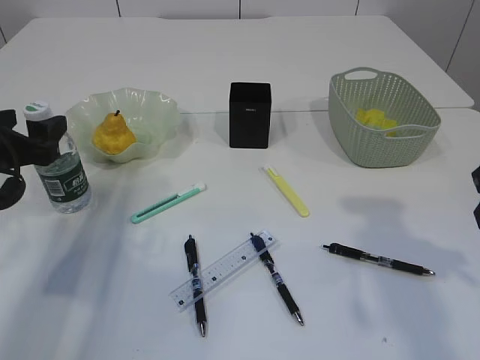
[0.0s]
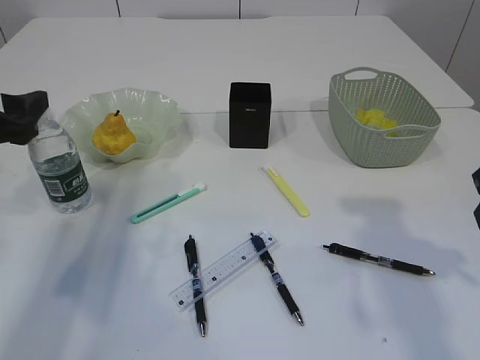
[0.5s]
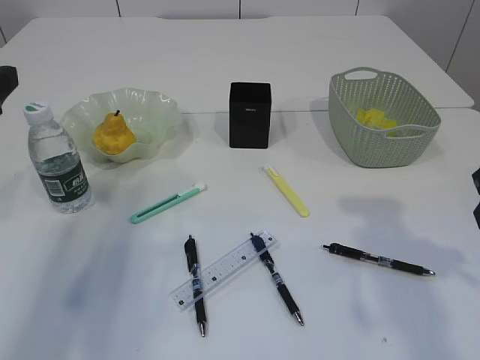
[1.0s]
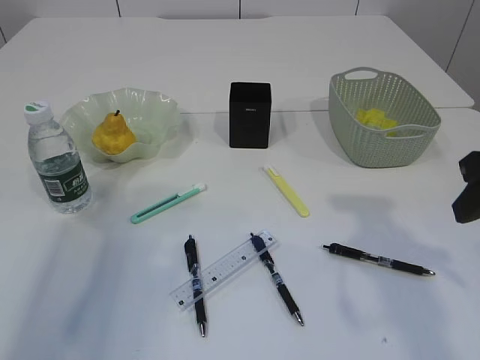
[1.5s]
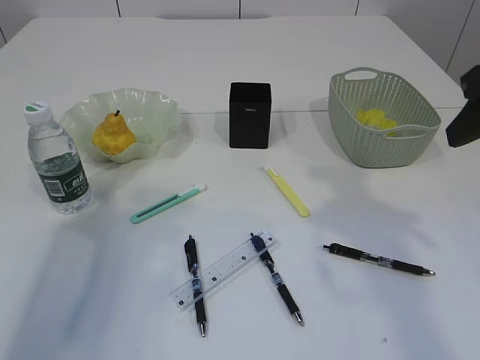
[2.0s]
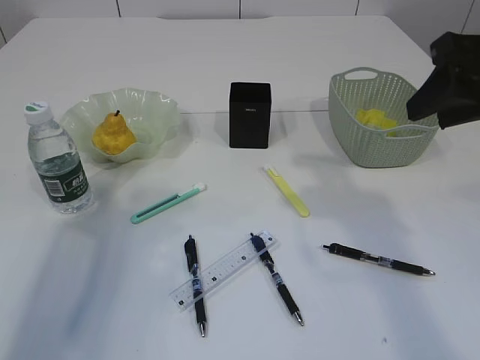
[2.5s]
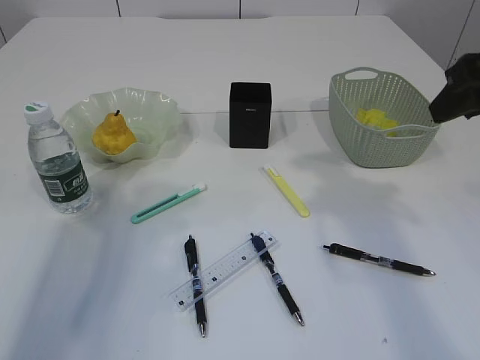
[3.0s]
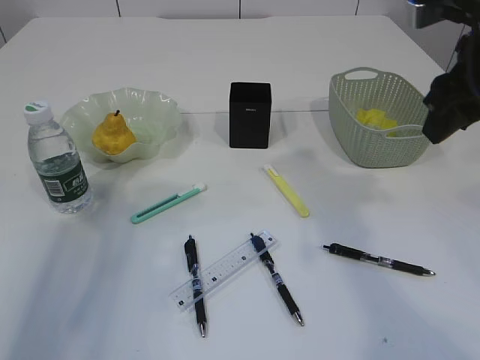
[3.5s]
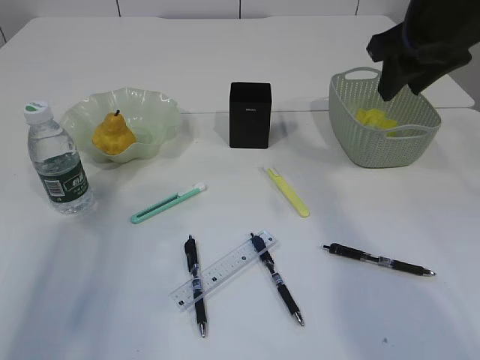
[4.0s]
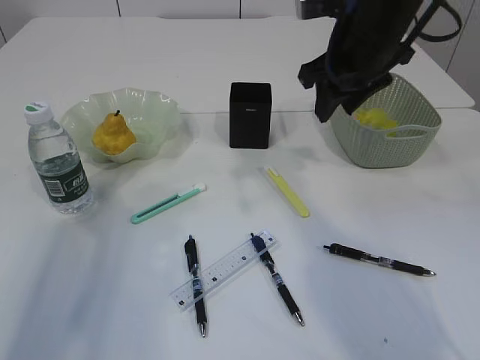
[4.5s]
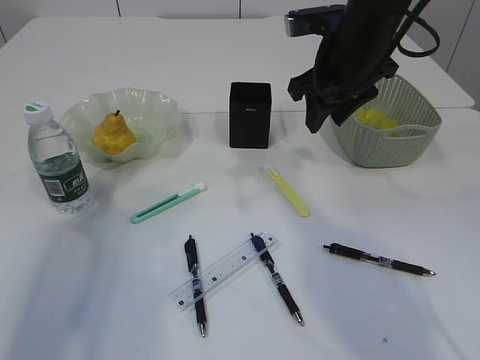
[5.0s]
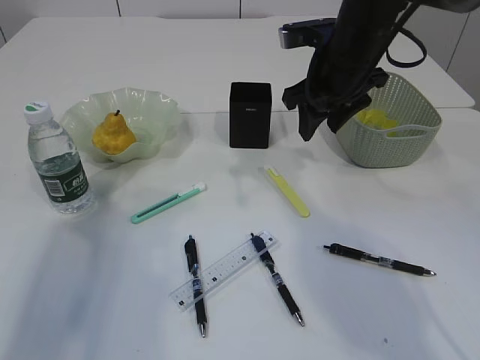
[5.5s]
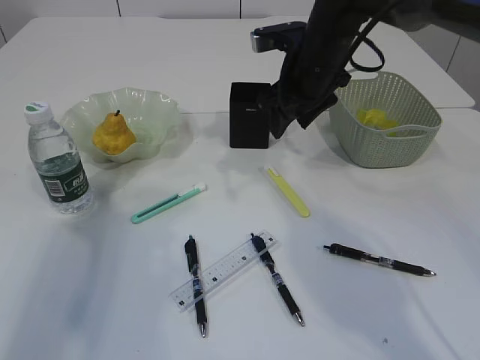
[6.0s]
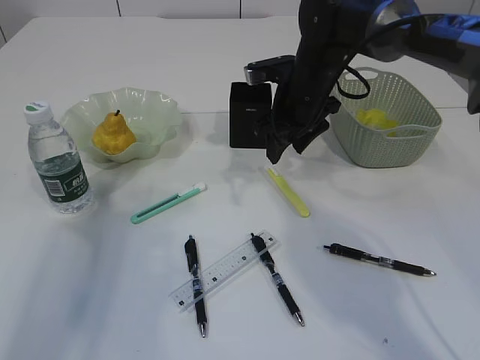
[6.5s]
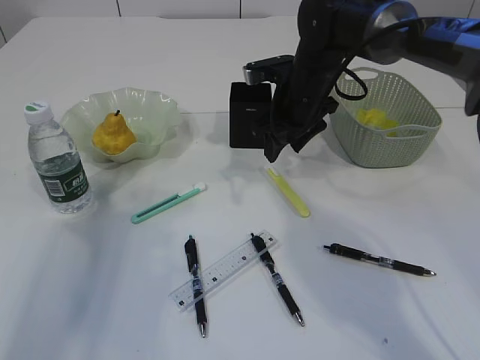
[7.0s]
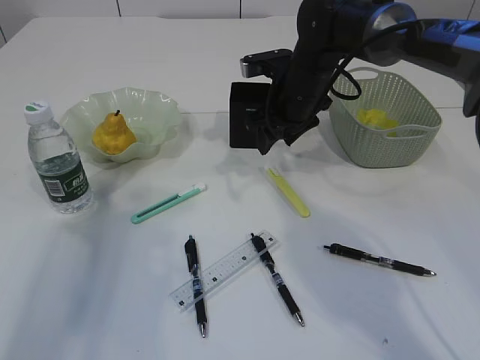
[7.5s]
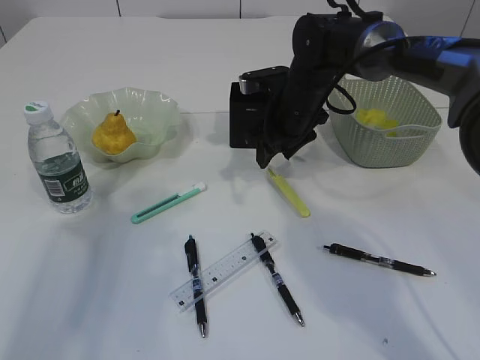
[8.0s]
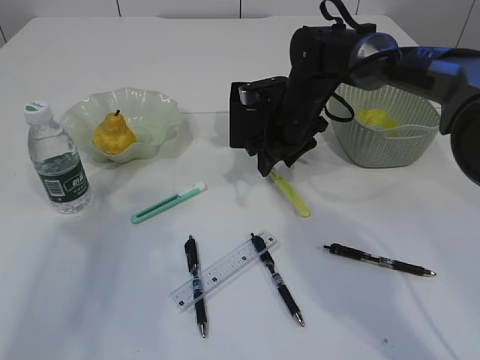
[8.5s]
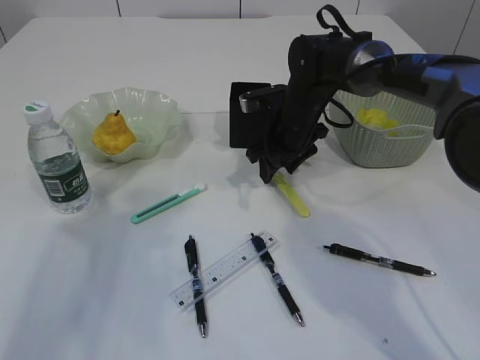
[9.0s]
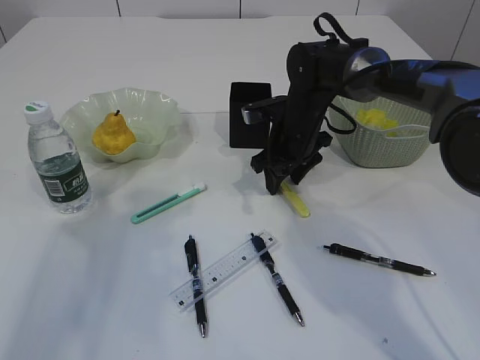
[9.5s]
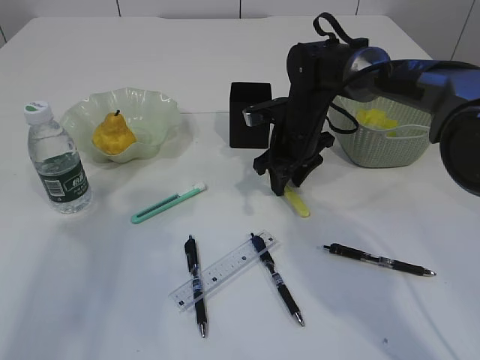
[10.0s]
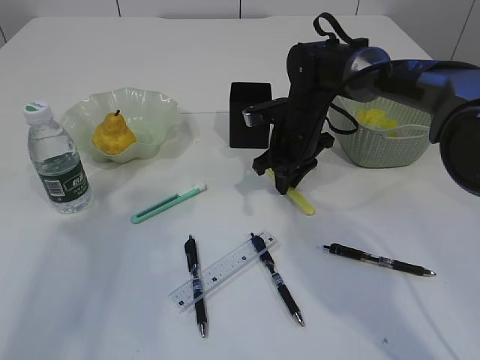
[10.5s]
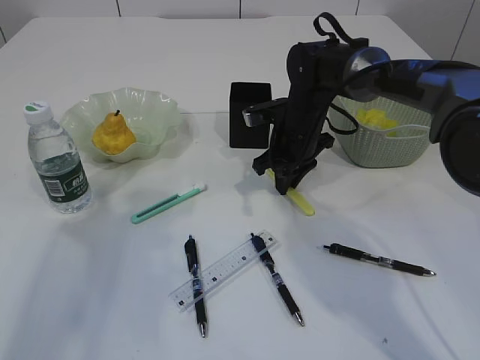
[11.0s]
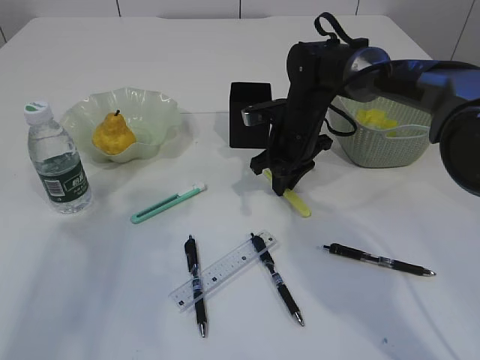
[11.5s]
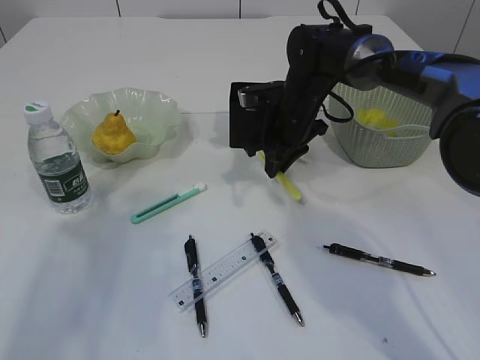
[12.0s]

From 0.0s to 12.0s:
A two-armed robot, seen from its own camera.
From 0.0s to 2.0s: The left gripper moves upward and backward, approximately 15 cm. The right gripper travels upward by approximately 5 cm.
From 2.0s to 4.0s: The right gripper goes some 10 cm forward.
From 4.0s to 6.0s: The right gripper heads to the left, downward and forward, covering about 15 cm.
From 6.0s to 8.0s: The right gripper goes approximately 5 cm downward.
From 8.0s to 10.0s: There are only small adjustments of the grippers.
From 10.0s to 12.0s: The right gripper closes up.

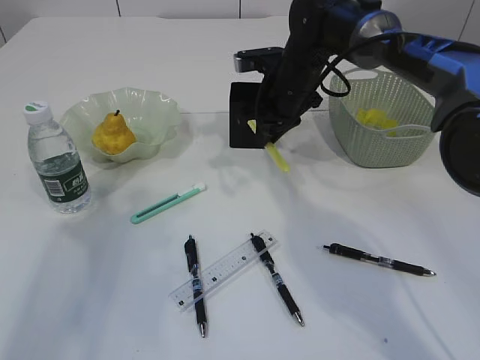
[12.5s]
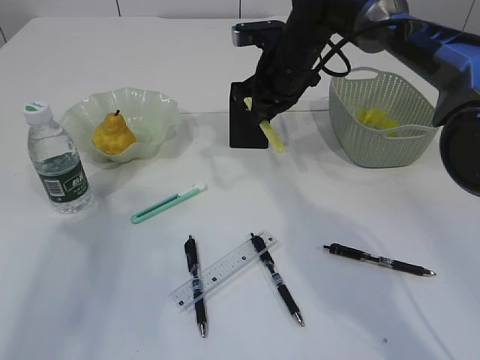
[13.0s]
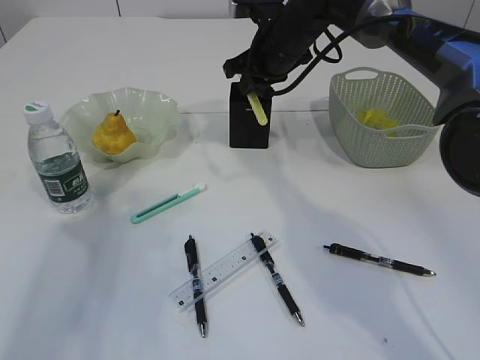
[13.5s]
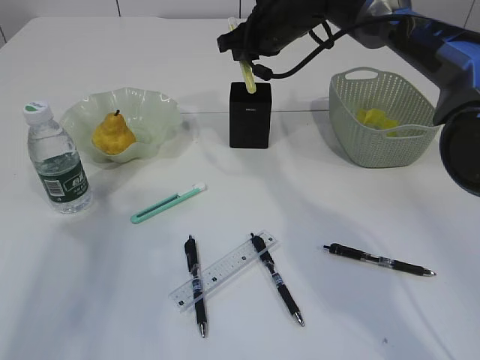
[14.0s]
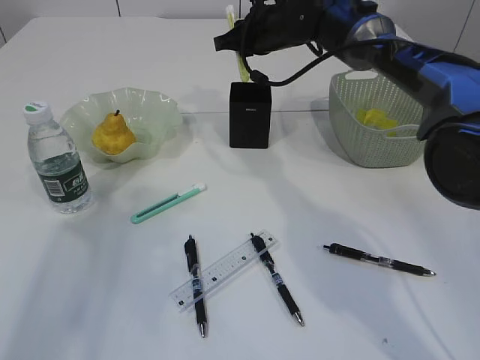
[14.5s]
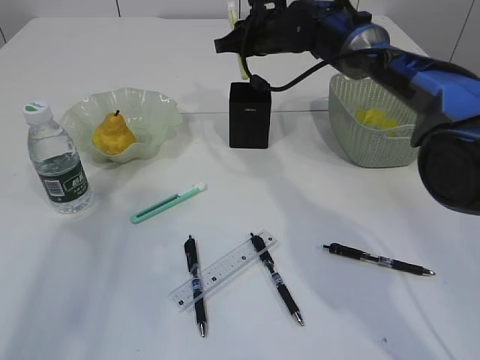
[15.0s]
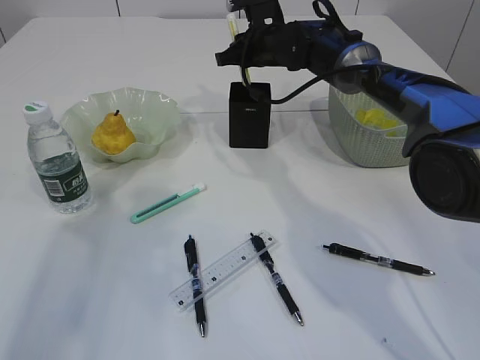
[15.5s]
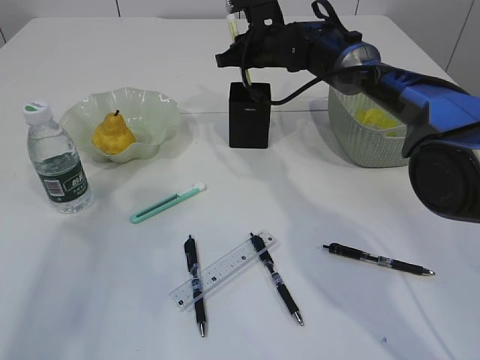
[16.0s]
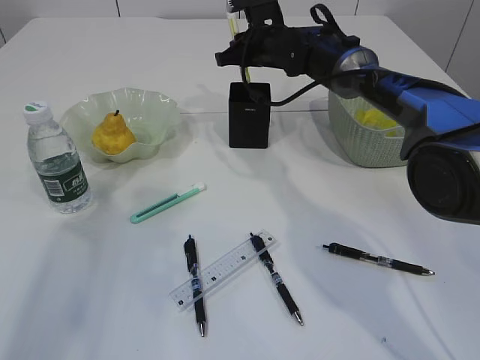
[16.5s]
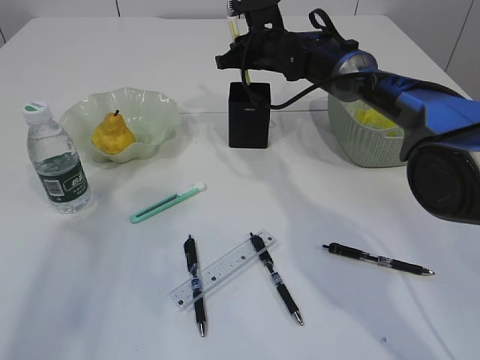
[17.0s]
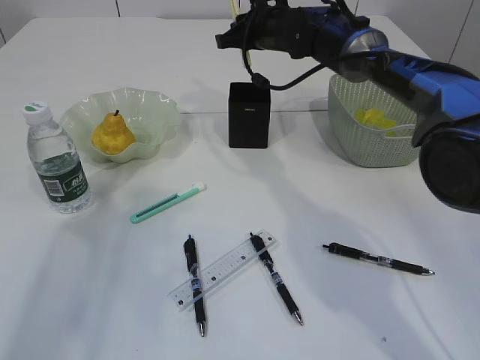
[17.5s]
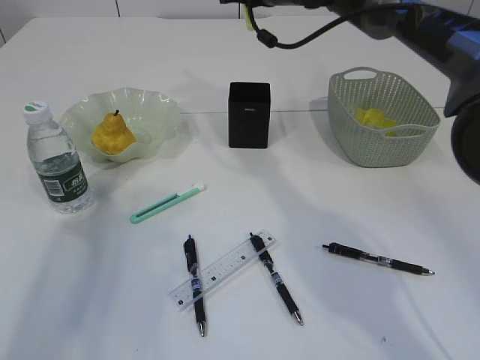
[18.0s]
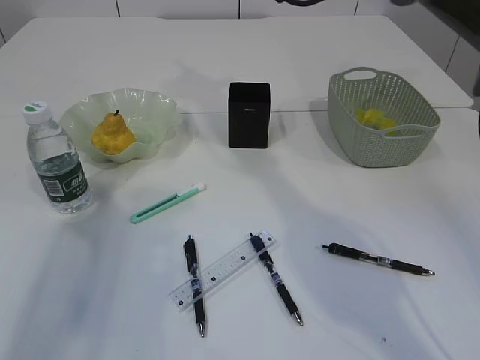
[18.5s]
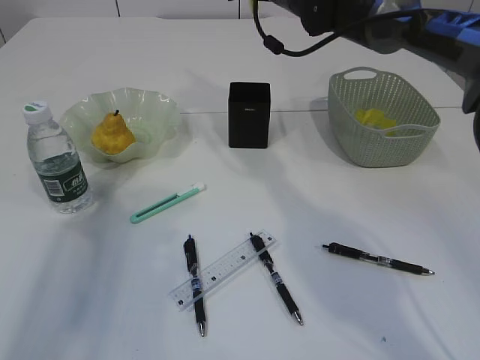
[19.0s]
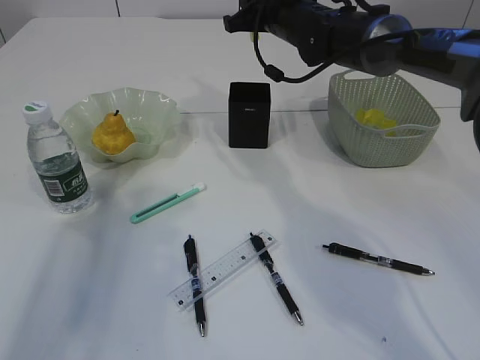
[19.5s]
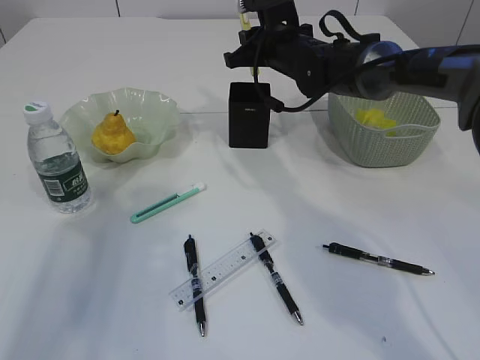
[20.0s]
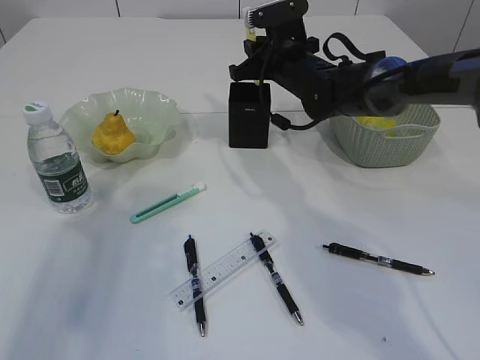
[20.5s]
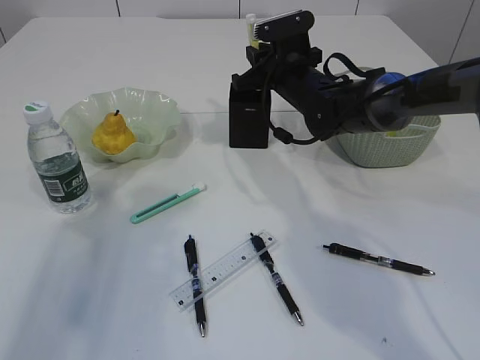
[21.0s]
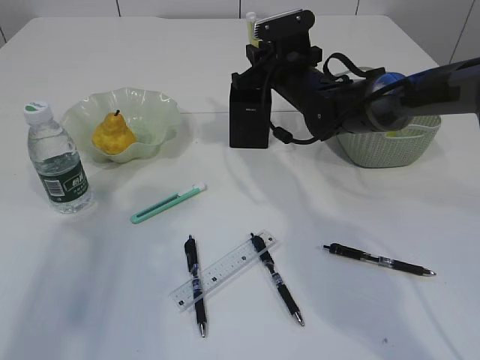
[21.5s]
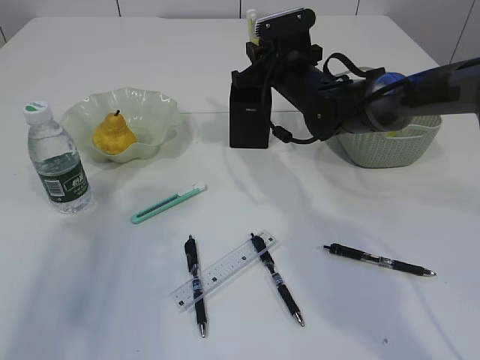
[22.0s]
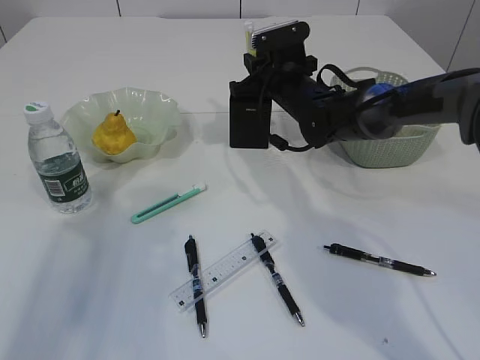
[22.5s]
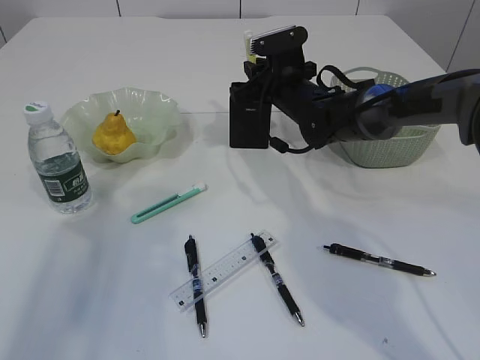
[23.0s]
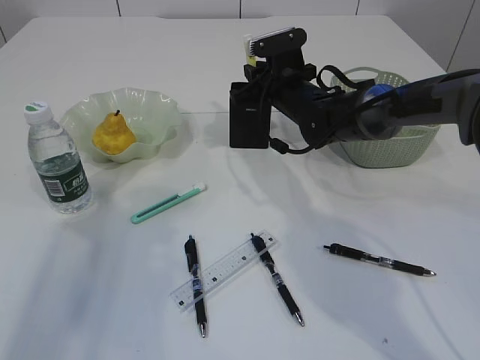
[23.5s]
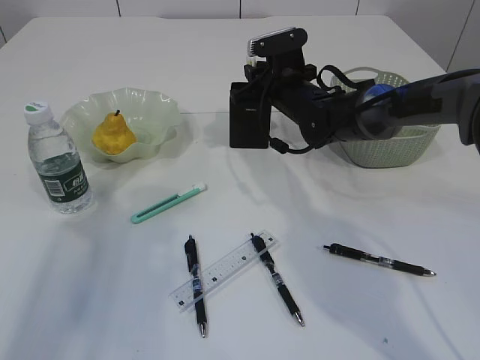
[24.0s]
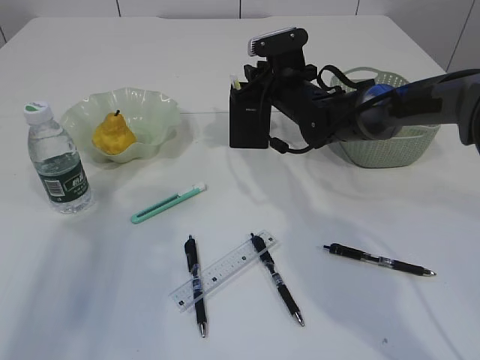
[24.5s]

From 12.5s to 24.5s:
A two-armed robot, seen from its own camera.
From 12.5s to 14.5s: The right gripper shifts some 10 cm forward and upward.
From 14.5s to 16.5s: There are only small adjustments of the grippers.
From 16.5s to 18.5s: The right gripper moves upward, about 15 cm.
From 18.5s to 20.5s: The right gripper travels downward by approximately 15 cm.
From 20.5s to 22.5s: The grippers make only small movements.
From 22.5s to 24.5s: Both grippers stay about where they are.

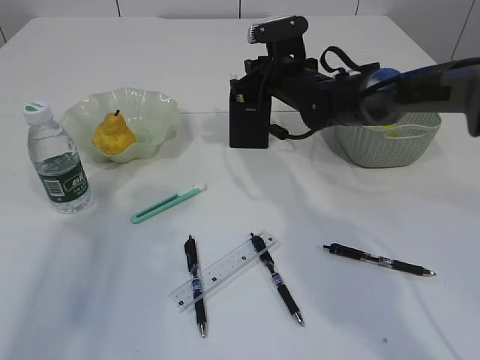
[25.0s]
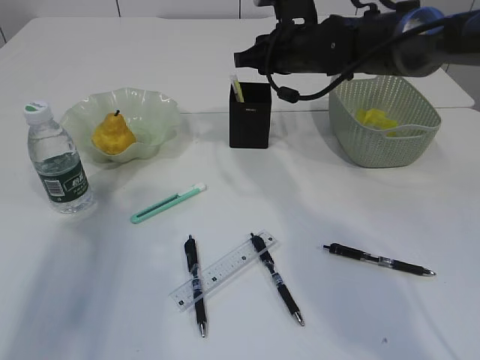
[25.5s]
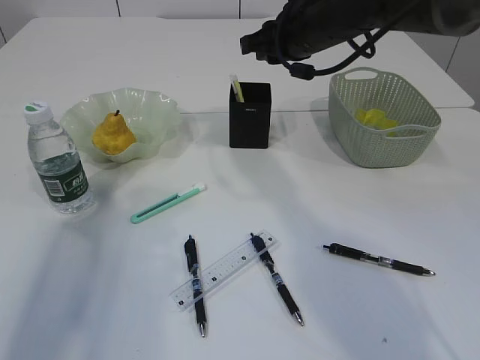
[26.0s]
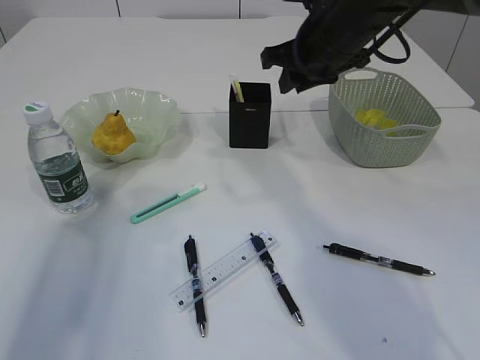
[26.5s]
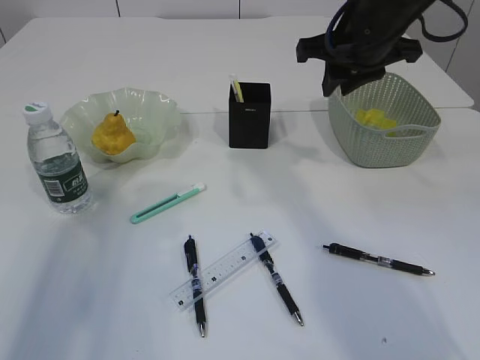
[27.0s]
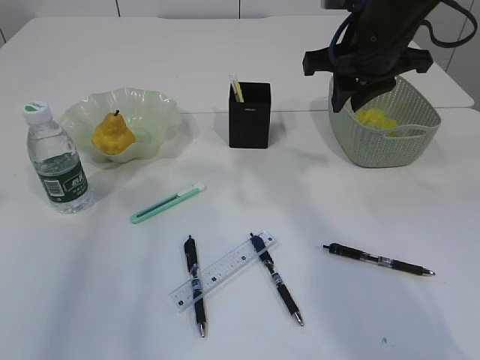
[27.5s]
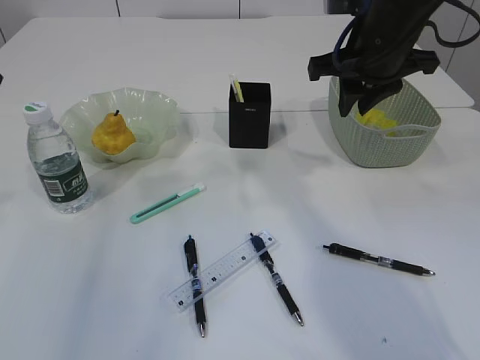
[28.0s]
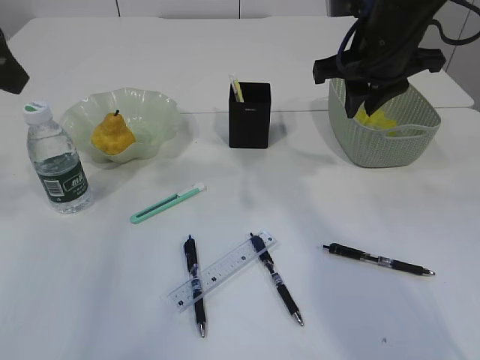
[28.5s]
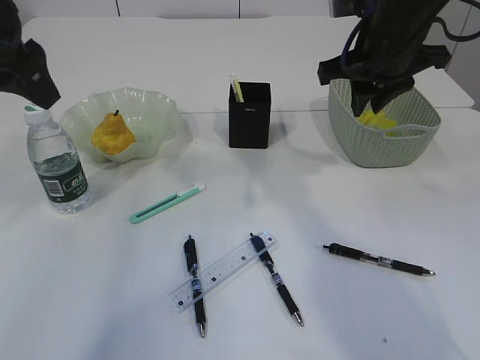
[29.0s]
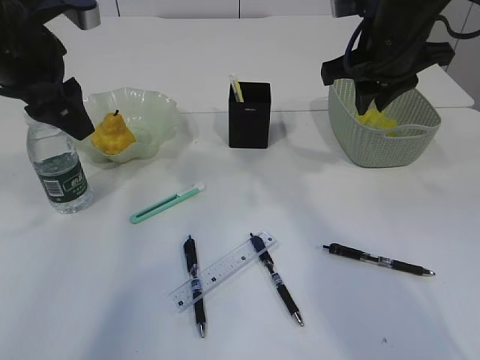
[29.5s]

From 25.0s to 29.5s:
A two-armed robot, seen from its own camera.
From 25.0s to 27.0s: The right gripper goes some 15 cm upward, backward and to the right.
From 27.0s to 29.5s: The left gripper goes some 15 cm forward and to the right.
